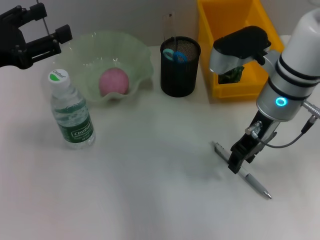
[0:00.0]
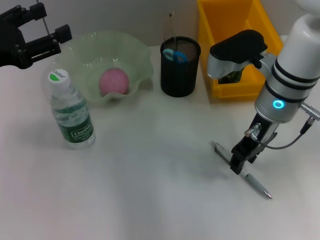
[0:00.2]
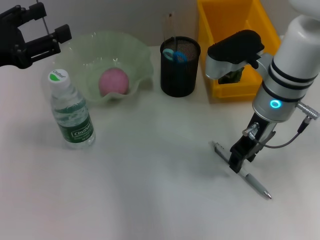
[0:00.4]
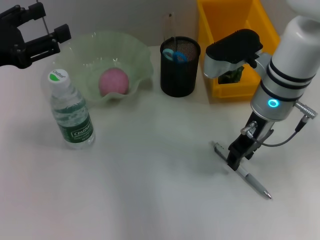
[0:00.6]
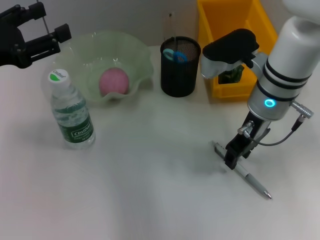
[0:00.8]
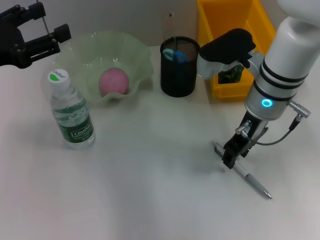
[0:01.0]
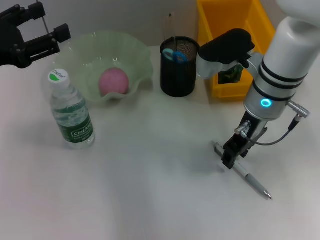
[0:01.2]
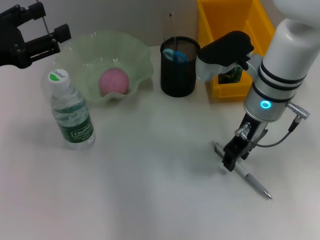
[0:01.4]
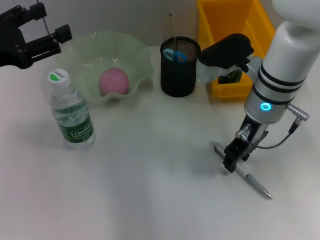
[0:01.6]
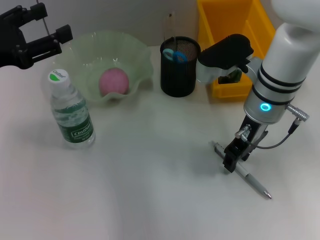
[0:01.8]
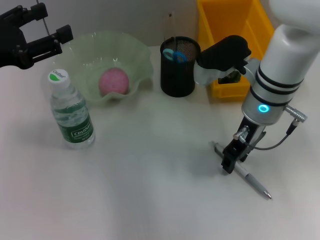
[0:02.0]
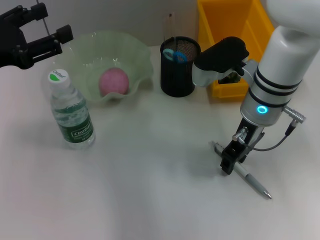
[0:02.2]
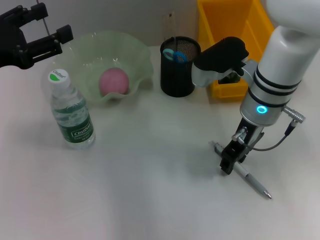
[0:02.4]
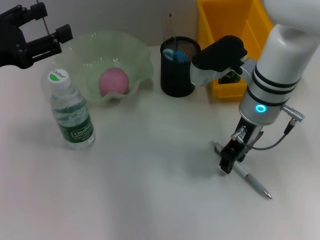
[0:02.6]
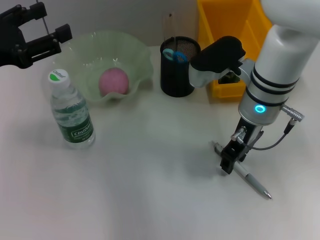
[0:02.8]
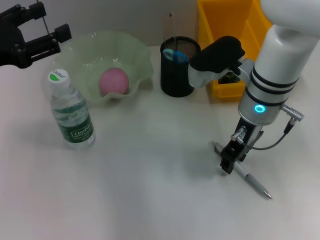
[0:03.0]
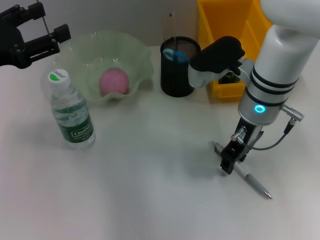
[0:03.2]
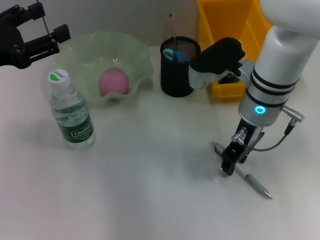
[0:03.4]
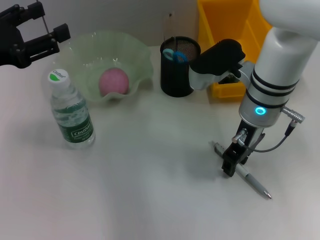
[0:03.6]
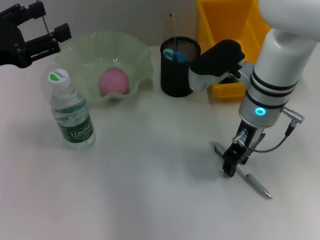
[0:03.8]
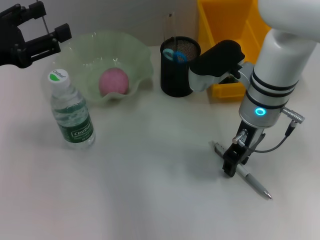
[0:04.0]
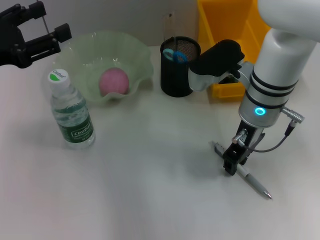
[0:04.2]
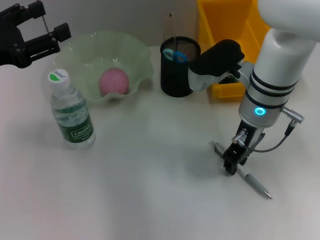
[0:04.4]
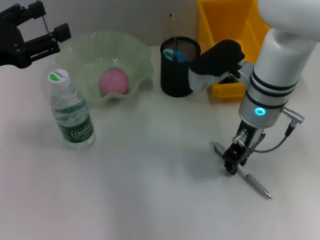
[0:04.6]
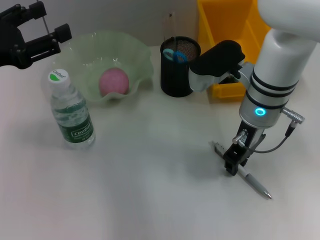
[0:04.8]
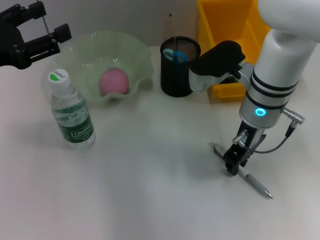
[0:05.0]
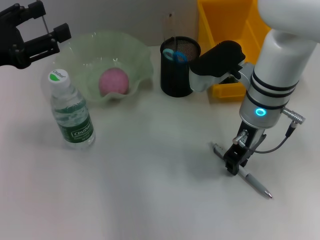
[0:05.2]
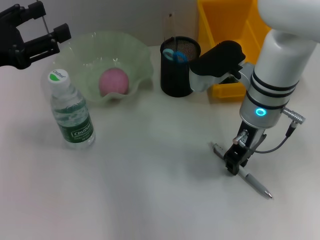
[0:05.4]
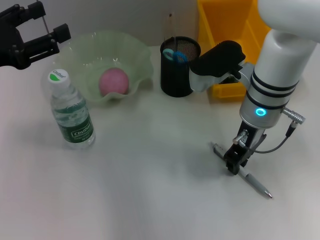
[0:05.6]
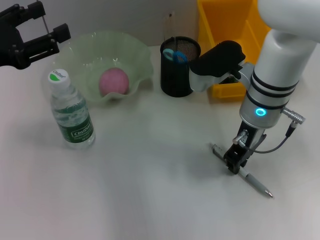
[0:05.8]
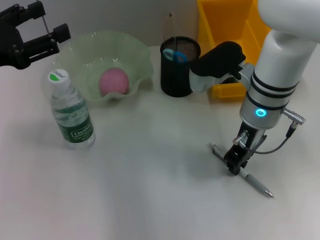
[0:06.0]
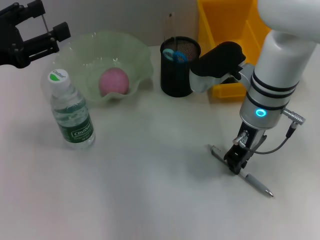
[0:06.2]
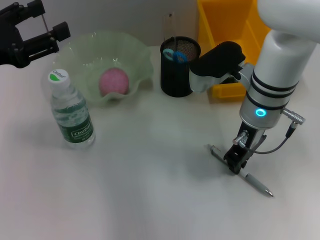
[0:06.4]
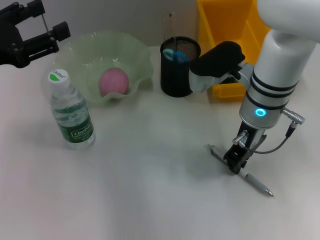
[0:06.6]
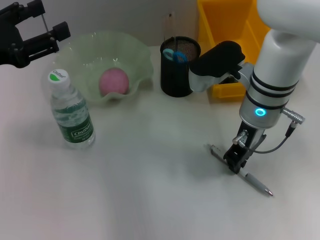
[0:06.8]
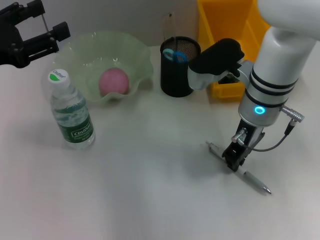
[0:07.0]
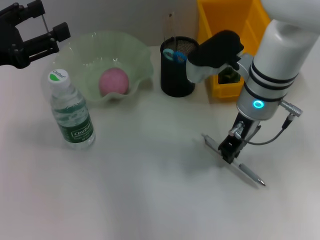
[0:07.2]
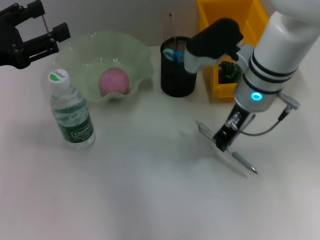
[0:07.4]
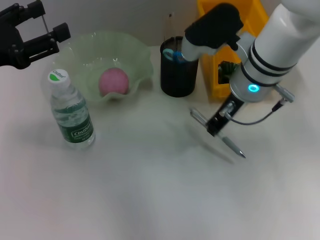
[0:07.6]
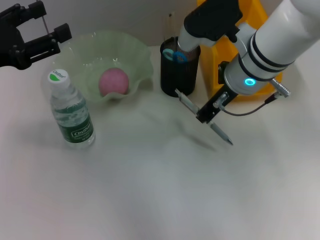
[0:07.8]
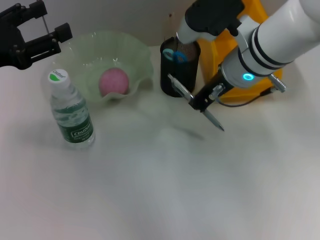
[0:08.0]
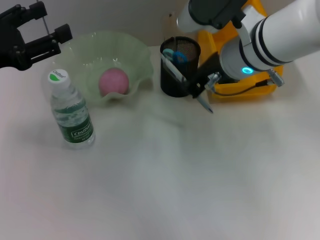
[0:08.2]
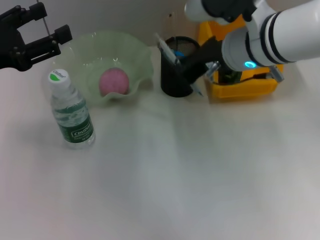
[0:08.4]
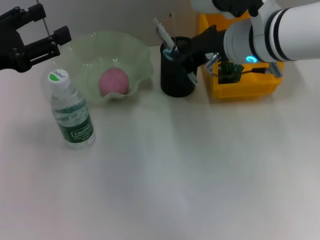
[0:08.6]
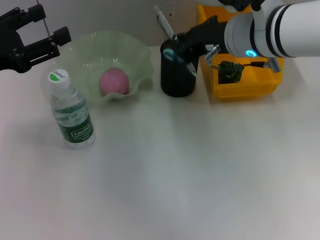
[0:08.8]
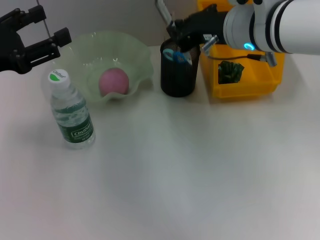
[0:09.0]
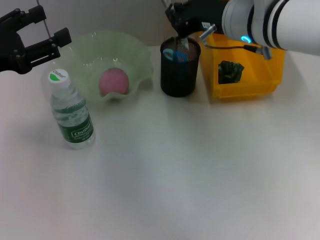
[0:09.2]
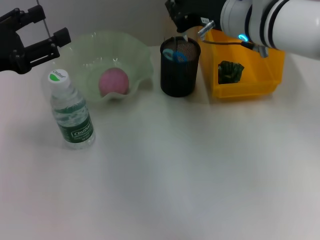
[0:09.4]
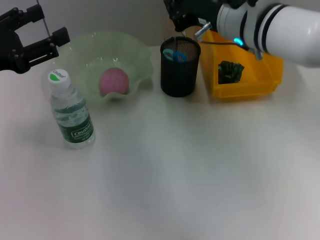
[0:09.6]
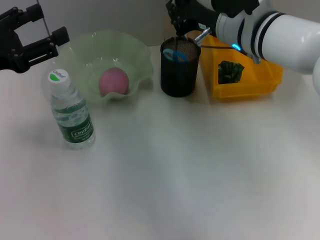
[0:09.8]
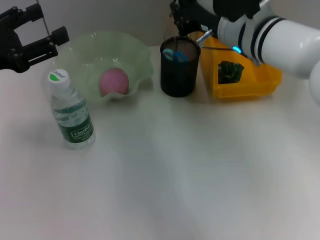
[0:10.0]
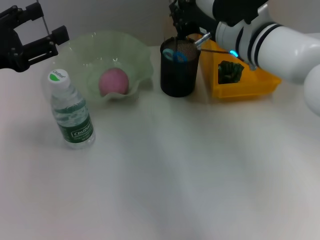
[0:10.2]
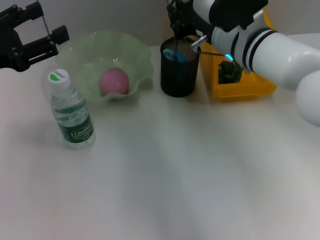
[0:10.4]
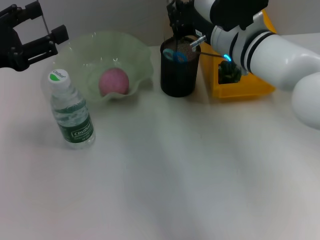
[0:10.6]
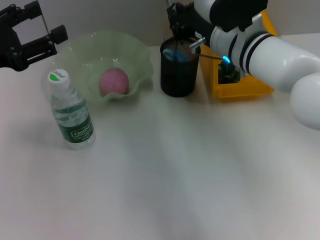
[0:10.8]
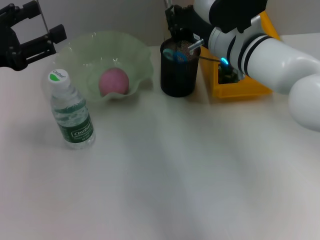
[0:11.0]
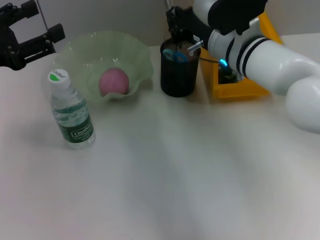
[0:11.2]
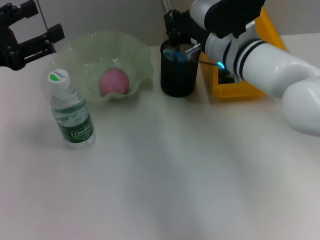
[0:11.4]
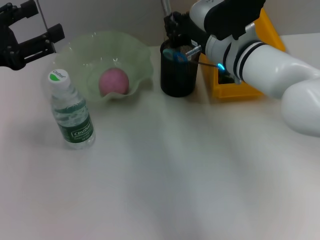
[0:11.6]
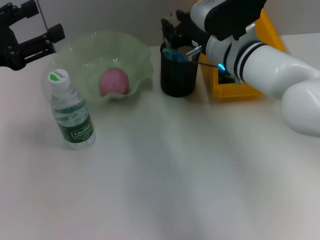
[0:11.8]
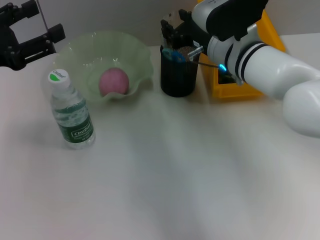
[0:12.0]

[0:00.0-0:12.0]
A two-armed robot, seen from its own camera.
Step, 0.0 to 11.8 s: Place the gray spring-action pen into the pen holder with the right hand.
0.0 to 1.6 s: The grippers move only a little.
1.6 to 6.0 s: Both grippers stay about where they are.
6.0 to 7.6 s: The grippers stay close to where they were, moving slightly.
9.0 to 10.4 s: The right gripper moves downward, roughly 5 cm.
10.4 to 12.0 s: The grippers make only small movements.

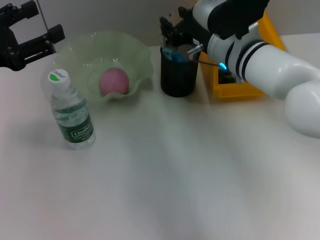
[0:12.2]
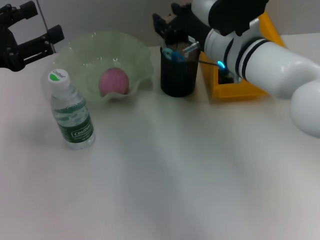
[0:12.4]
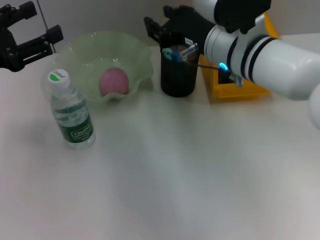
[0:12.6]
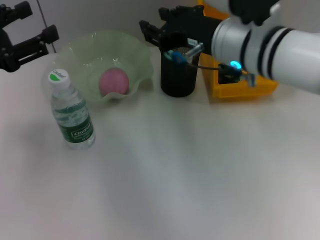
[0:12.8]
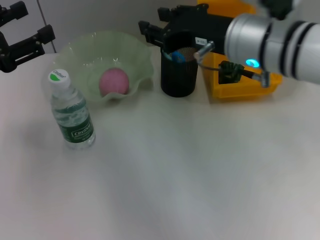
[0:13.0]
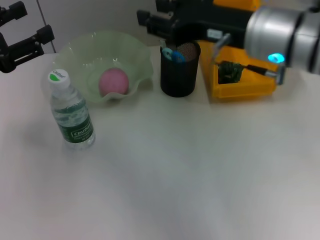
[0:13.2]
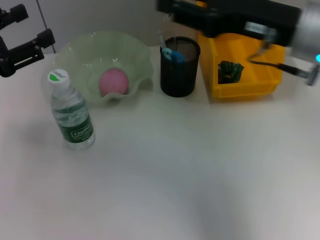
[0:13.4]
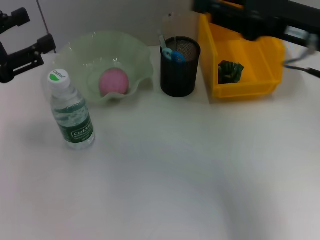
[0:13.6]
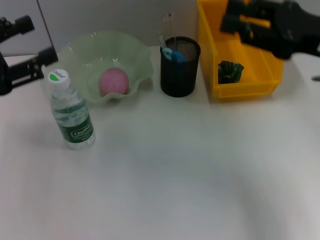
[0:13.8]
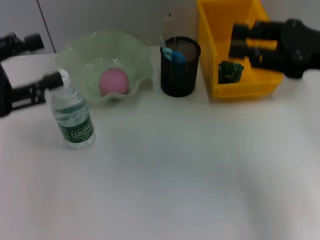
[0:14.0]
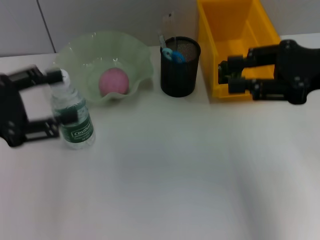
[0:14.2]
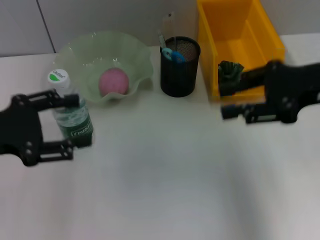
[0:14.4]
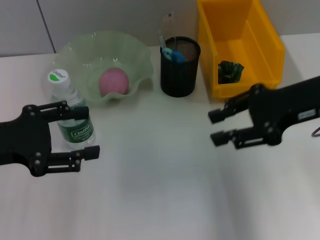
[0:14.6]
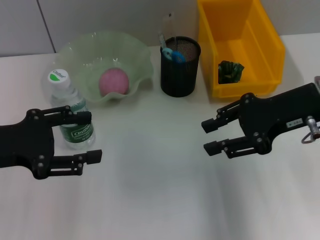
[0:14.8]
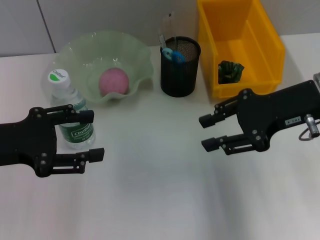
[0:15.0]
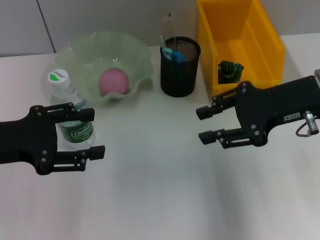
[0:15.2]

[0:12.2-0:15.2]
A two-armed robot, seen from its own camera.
12.2 to 13.8 s: The right gripper goes approximately 20 cm to the right, backward and upward.

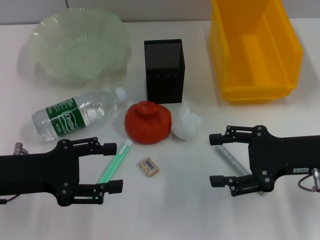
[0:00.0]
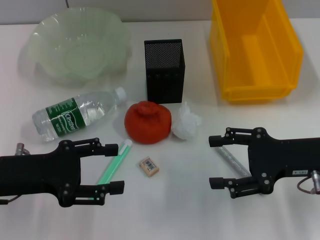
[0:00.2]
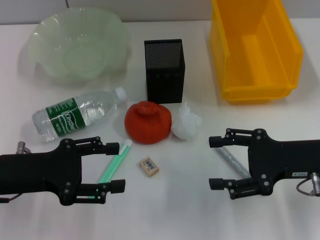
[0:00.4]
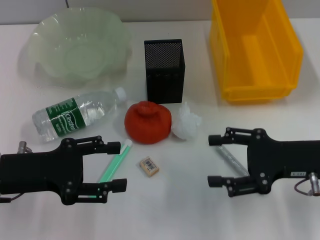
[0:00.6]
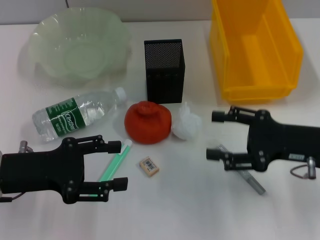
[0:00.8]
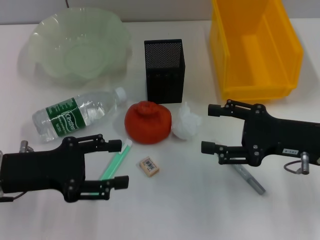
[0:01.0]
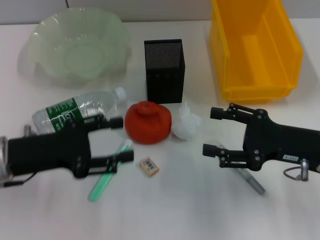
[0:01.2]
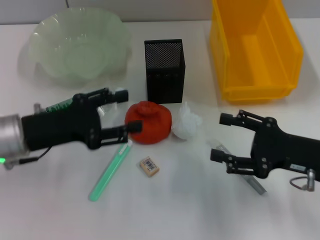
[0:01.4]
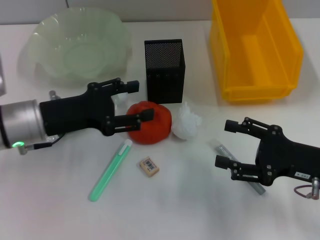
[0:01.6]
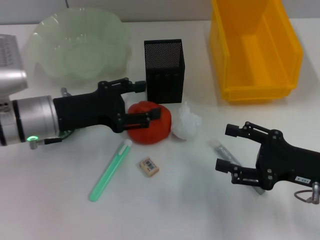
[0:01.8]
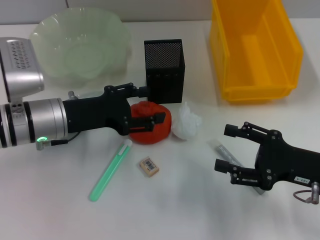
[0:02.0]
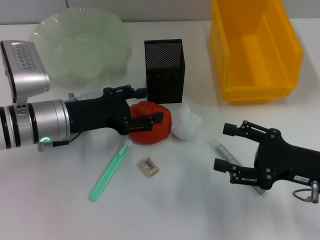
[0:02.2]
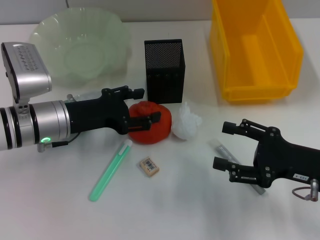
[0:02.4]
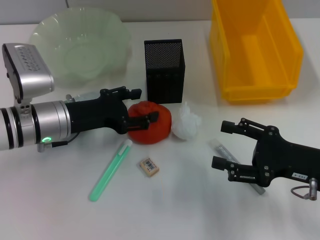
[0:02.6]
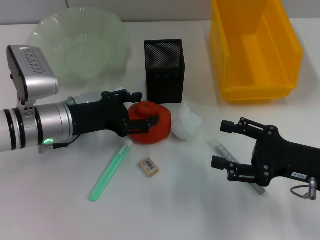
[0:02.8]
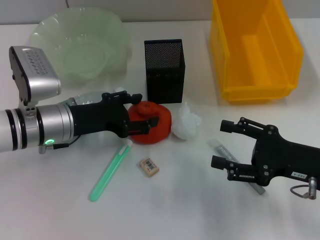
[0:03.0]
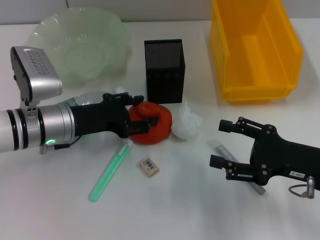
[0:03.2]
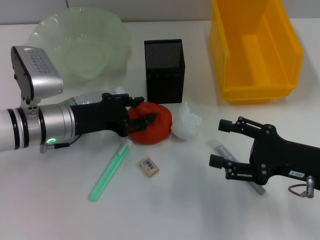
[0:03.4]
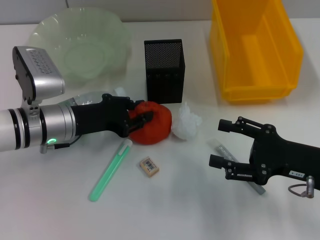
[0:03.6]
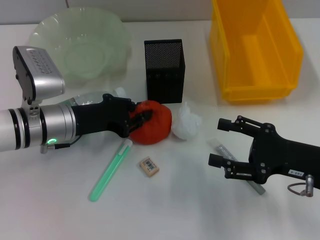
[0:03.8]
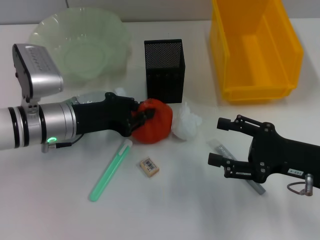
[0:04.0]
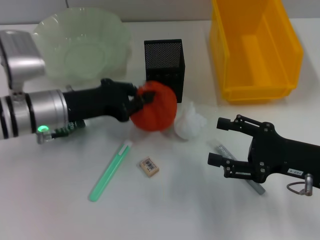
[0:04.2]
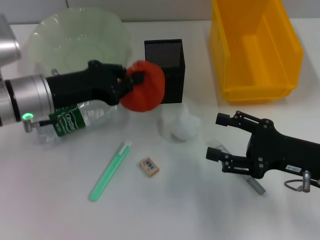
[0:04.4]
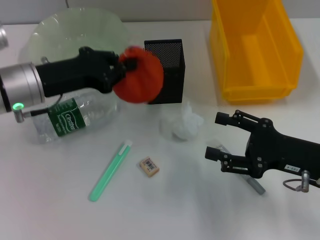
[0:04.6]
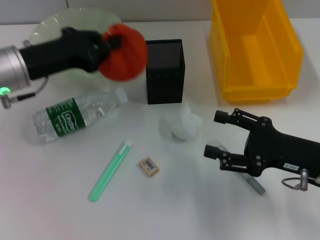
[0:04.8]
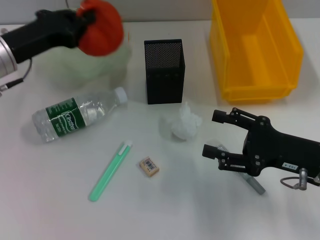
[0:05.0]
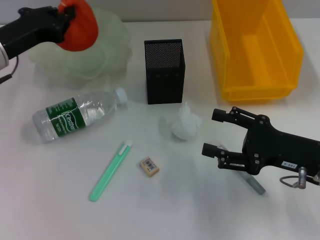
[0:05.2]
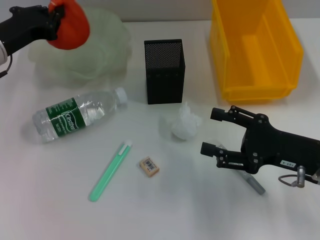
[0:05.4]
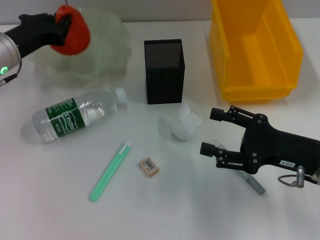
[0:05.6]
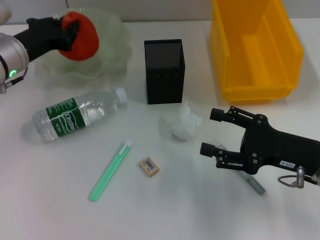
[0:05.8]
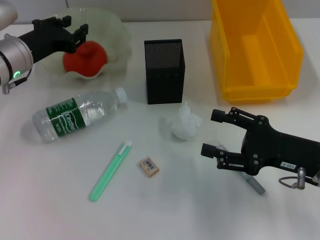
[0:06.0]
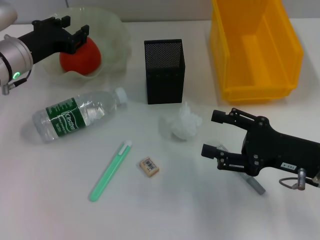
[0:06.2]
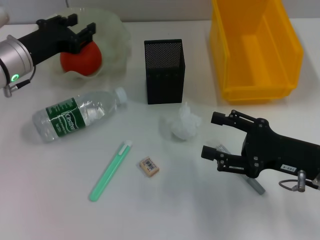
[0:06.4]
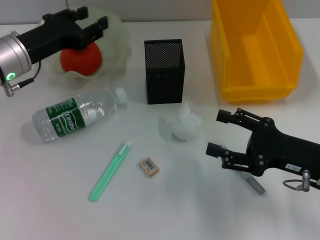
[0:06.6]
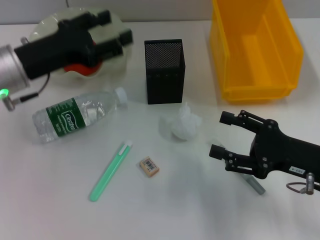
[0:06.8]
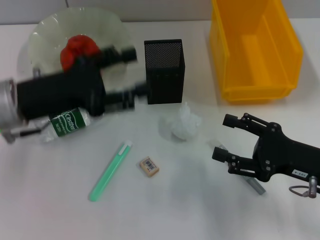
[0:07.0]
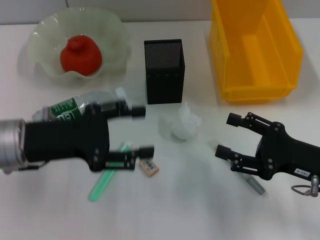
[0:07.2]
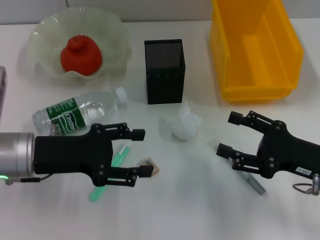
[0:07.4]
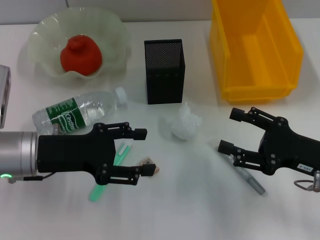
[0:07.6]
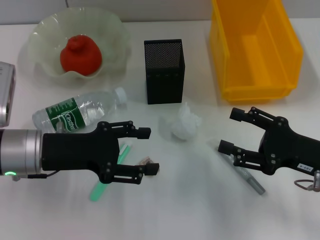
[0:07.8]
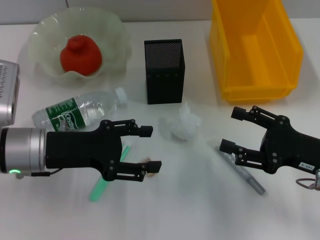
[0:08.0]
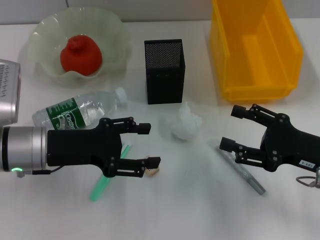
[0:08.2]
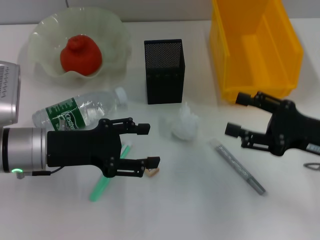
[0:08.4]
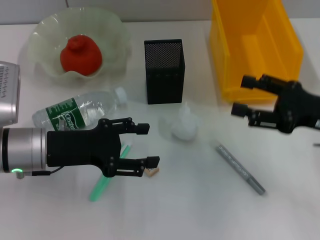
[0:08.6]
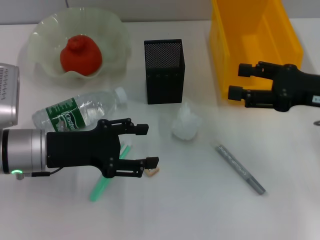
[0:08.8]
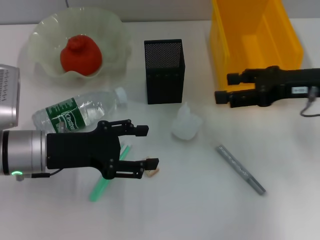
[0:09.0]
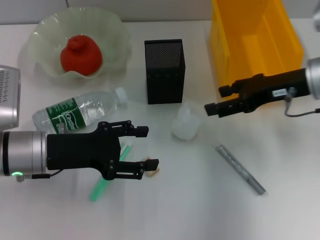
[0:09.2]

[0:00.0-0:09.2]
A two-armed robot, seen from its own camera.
Step, 0.0 to 3.2 s: Grab the orange with the left hand.
Step, 3.4 to 6.2 s: Place the orange into the fruit bowl with the left hand.
0.0 to 1.6 s: The left gripper travels forward by about 5 cm, while the right gripper changes place by some 5 cm.
1.6 to 3.0 s: The grippers stay close to where they were, moving slightly.
3.0 to 4.6 s: The left gripper moves upward, roughly 5 cm, and closes.
4.6 to 6.2 s: The left gripper shifts some 5 cm forward, and opens.
6.2 to 7.6 s: The left gripper travels backward by roughly 10 cm, and opens up.
7.6 to 9.2 s: The right gripper moves forward and upward, roughly 15 cm.
